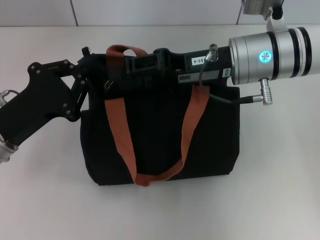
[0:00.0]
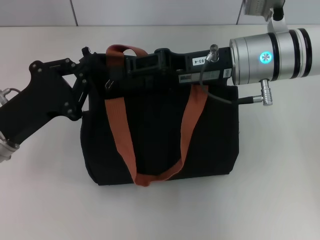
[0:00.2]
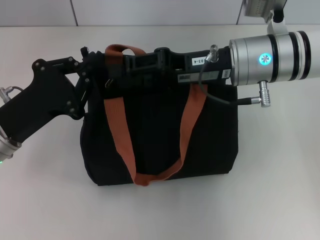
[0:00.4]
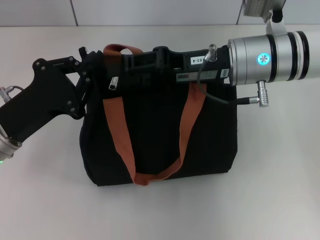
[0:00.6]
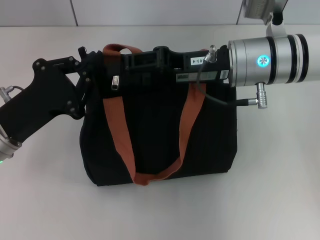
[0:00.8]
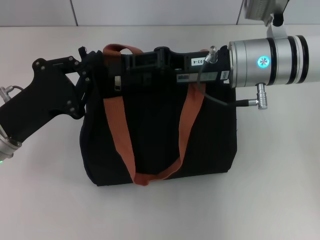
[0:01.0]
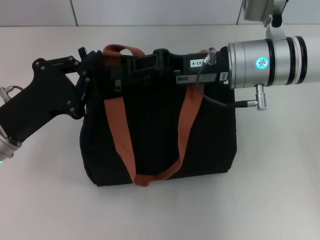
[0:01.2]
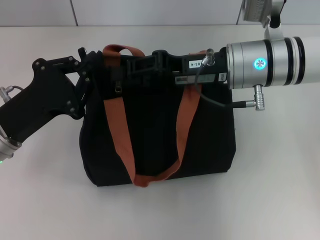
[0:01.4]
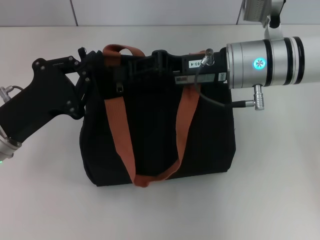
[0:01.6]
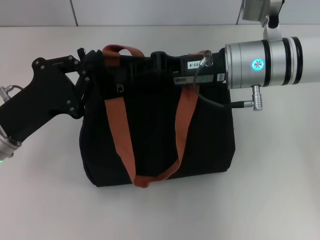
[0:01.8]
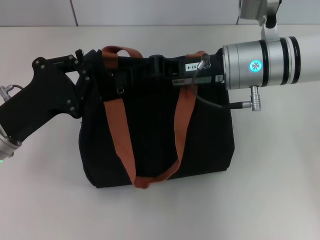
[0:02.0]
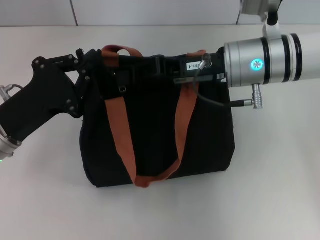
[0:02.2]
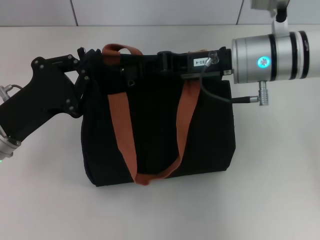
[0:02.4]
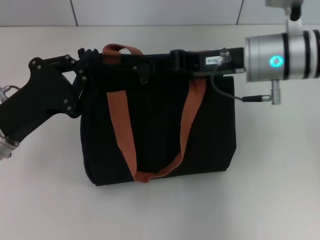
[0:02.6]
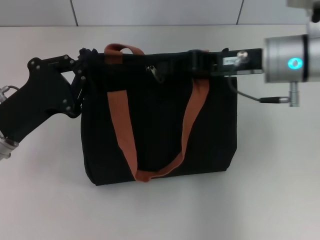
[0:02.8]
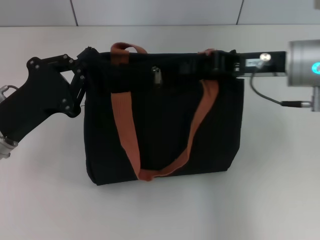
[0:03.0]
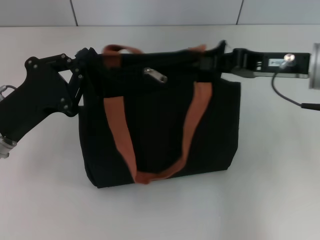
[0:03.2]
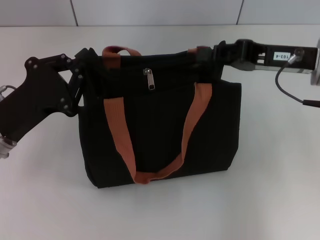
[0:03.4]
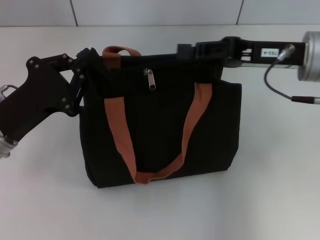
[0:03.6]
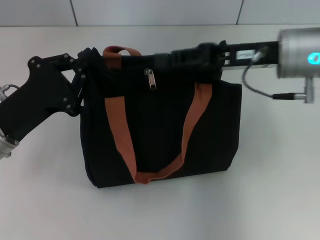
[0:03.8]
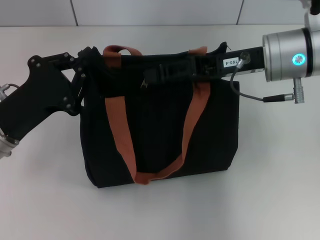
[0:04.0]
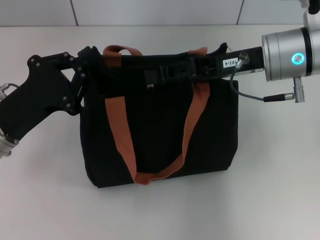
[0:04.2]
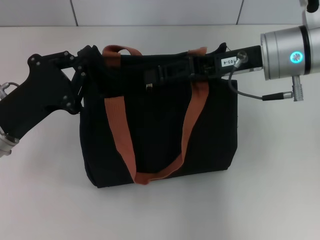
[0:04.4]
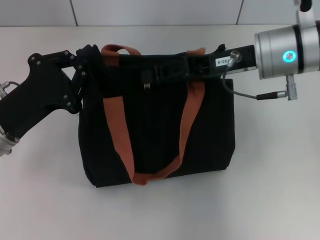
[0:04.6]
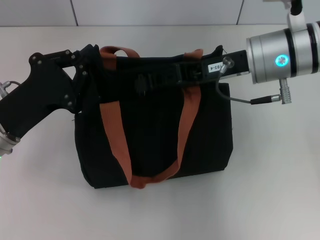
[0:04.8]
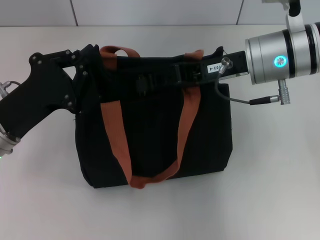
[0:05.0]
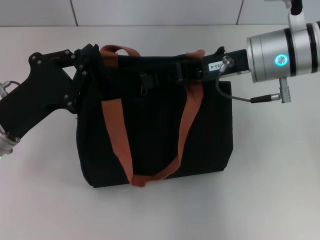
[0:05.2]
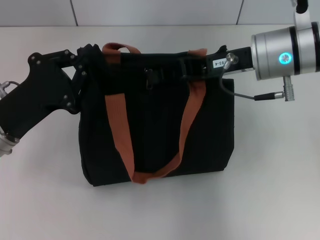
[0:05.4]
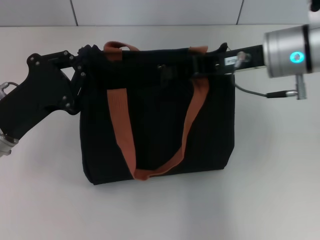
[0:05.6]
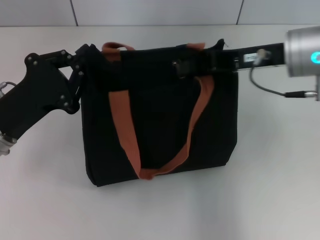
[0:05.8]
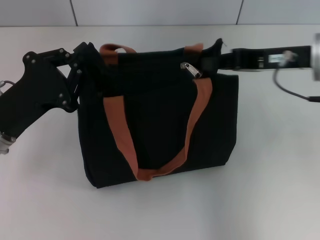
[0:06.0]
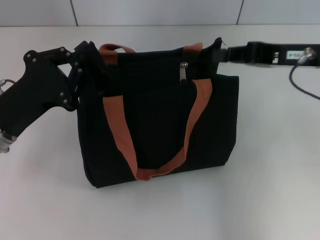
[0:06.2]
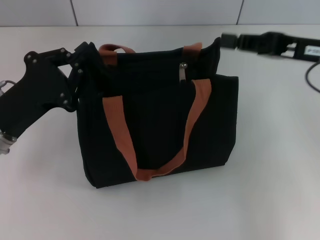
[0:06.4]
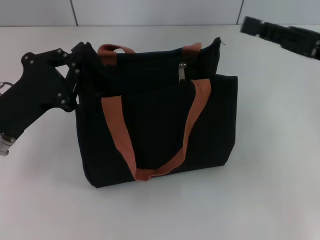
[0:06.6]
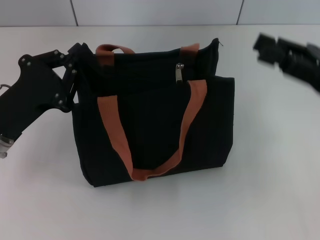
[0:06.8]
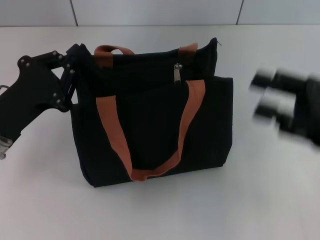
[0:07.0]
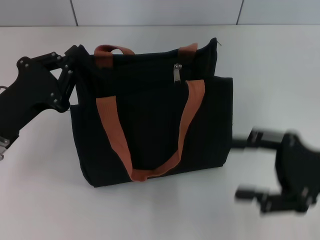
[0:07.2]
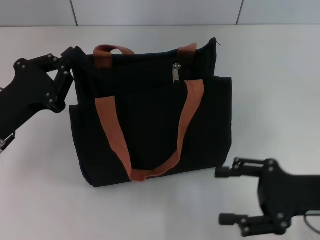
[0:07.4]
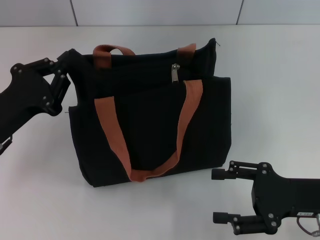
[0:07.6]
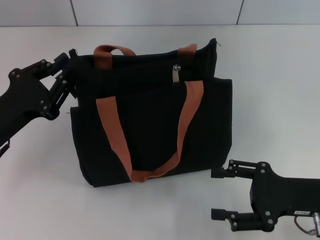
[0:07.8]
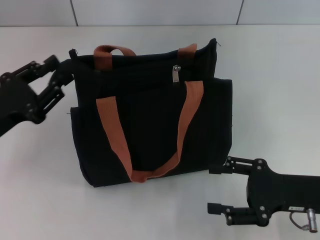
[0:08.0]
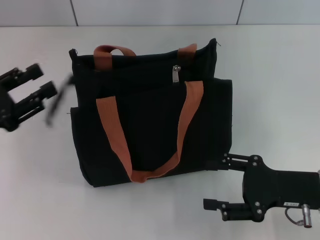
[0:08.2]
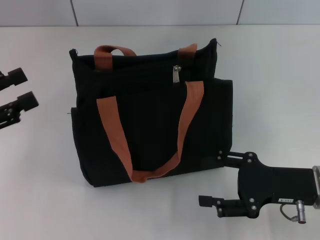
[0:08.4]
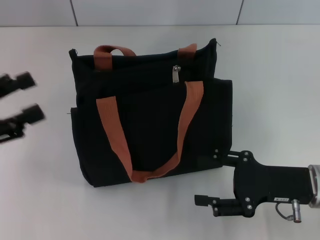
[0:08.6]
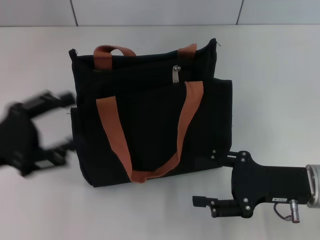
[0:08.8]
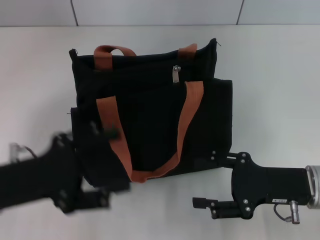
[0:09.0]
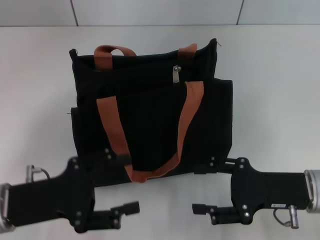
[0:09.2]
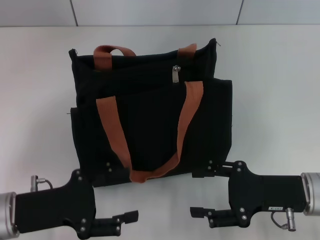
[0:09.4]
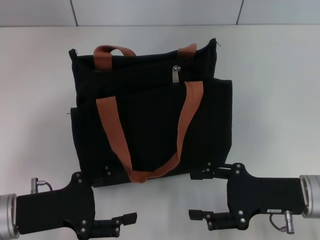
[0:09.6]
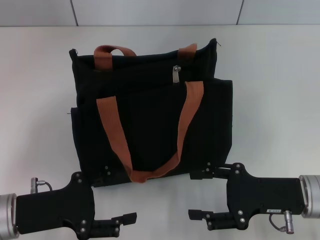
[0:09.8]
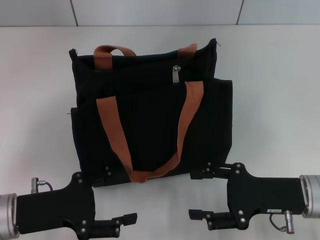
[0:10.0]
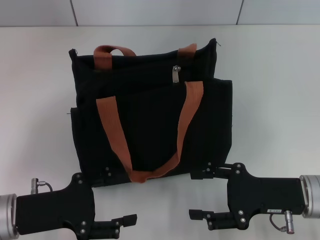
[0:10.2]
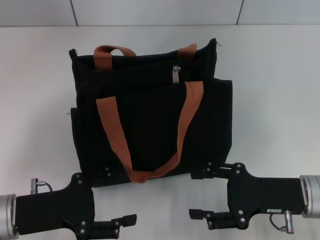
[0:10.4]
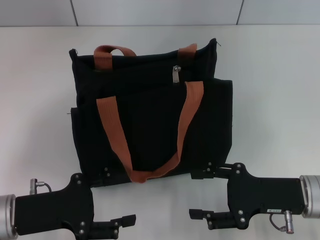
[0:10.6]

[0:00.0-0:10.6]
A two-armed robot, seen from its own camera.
Step, 0:00.0 to 0:05.8: Pull up the zipper with your right hand.
Step, 0:06.2 to 0:08.0: Grab the zipper with your left hand.
0:00.0 to 0:01.6: Neither gripper changes place.
0:01.6 to 0:03.0: The right gripper shifts approximately 5 cm to the right, and closes.
0:03.0 to 0:04.6: The right gripper opens.
0:04.6 to 0:06.0: The right gripper shifts about 5 cm to the right, and closes.
0:06.0 to 0:07.6: The right gripper shifts approximately 20 cm downward and backward, and opens up.
0:07.6 to 0:09.0: The left gripper travels to the left and back again, roughly 10 cm each way, and opens its fingers.
0:09.0 to 0:10.6: The left gripper travels downward by about 5 cm.
